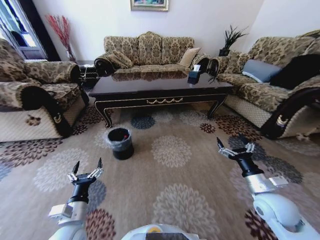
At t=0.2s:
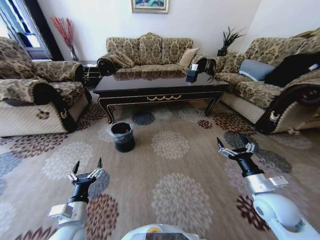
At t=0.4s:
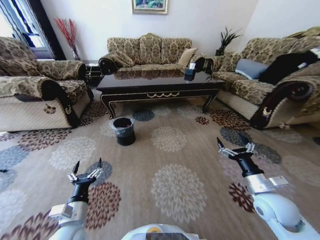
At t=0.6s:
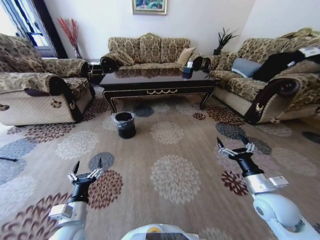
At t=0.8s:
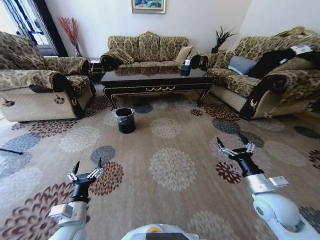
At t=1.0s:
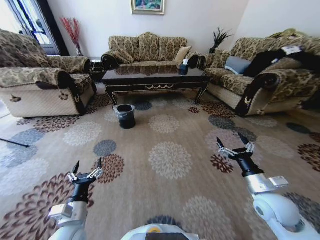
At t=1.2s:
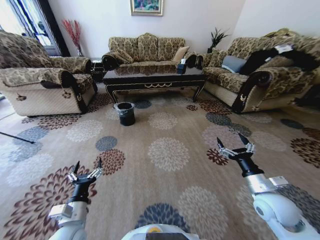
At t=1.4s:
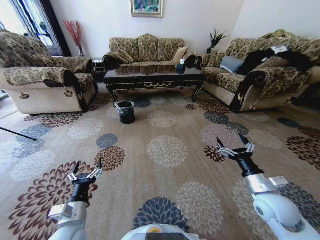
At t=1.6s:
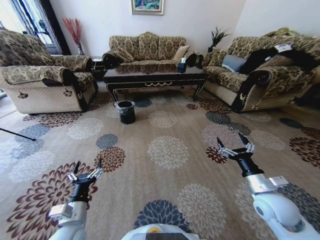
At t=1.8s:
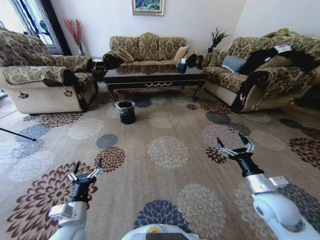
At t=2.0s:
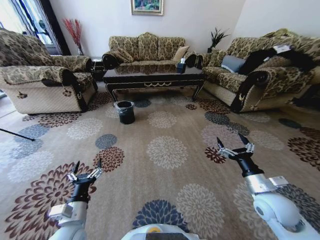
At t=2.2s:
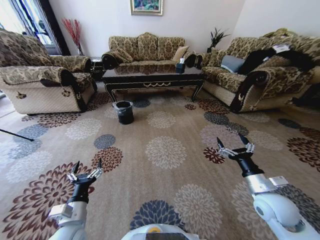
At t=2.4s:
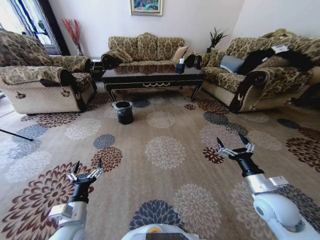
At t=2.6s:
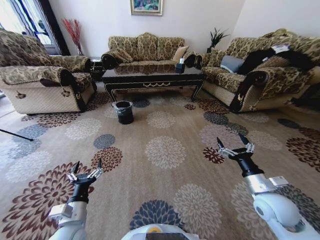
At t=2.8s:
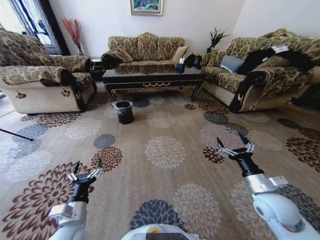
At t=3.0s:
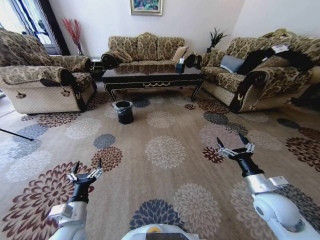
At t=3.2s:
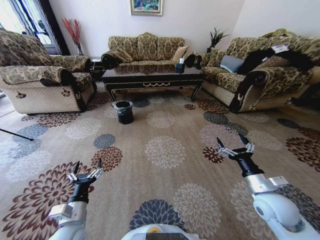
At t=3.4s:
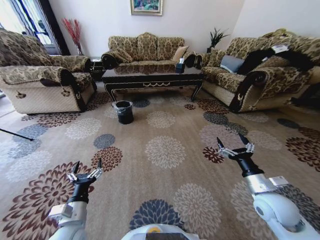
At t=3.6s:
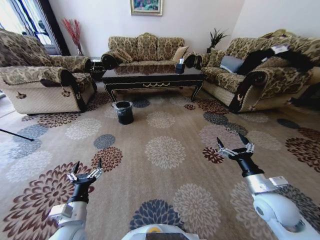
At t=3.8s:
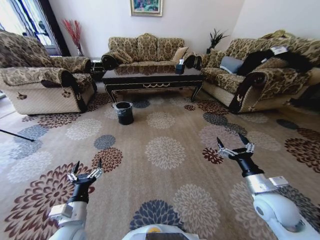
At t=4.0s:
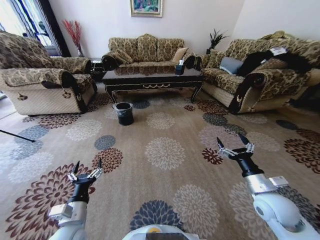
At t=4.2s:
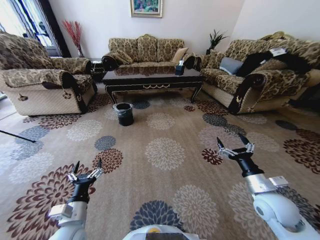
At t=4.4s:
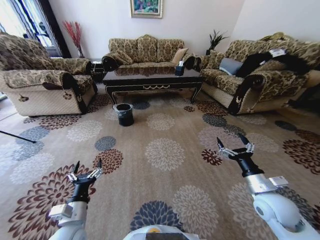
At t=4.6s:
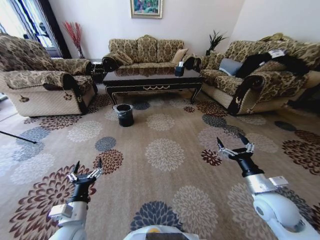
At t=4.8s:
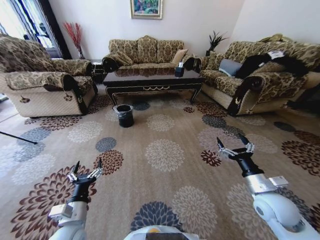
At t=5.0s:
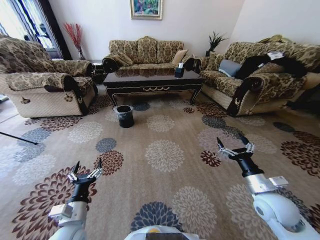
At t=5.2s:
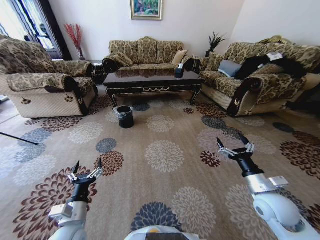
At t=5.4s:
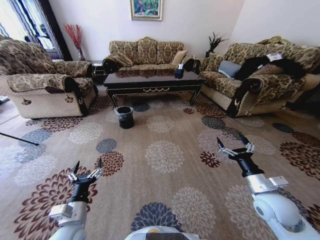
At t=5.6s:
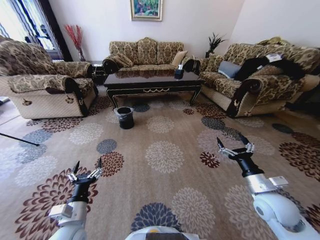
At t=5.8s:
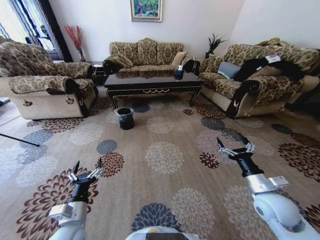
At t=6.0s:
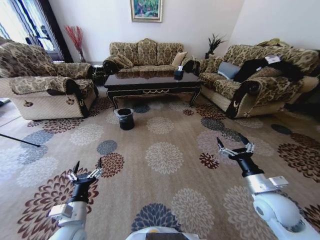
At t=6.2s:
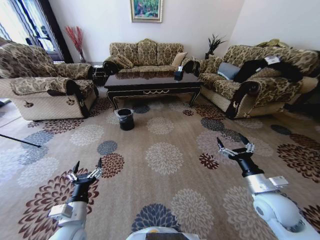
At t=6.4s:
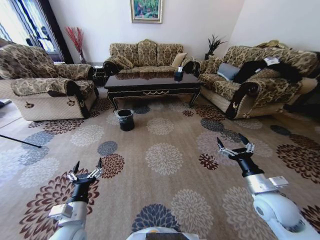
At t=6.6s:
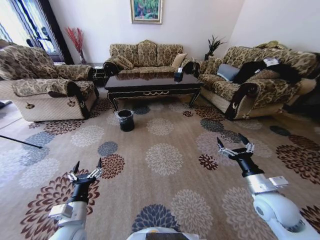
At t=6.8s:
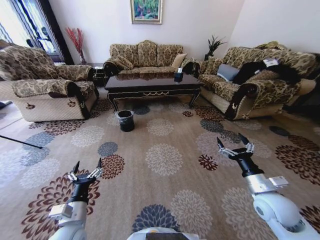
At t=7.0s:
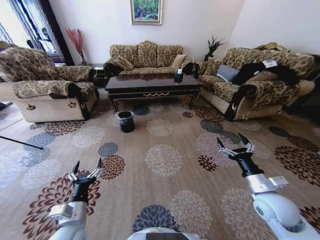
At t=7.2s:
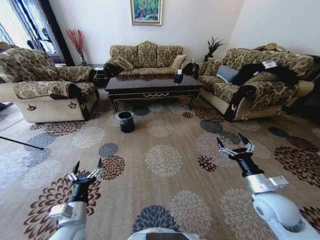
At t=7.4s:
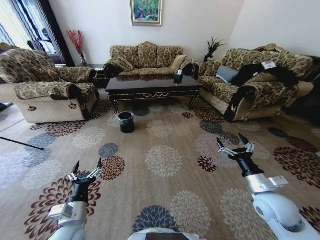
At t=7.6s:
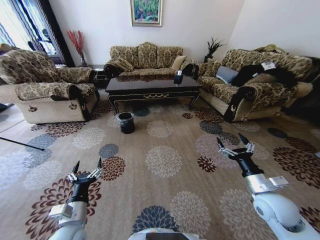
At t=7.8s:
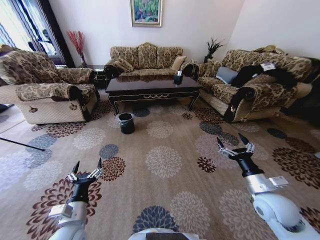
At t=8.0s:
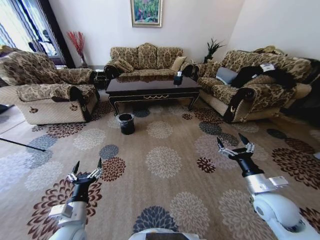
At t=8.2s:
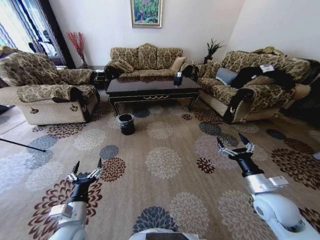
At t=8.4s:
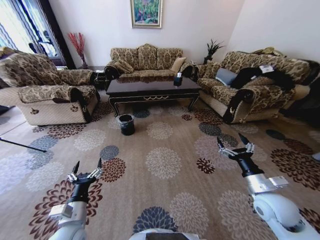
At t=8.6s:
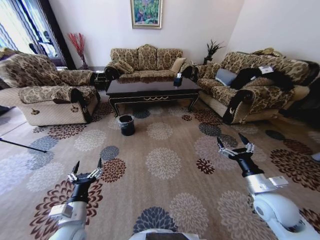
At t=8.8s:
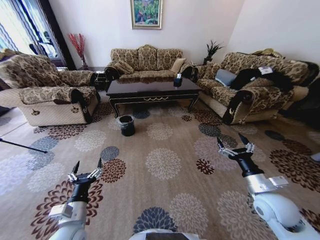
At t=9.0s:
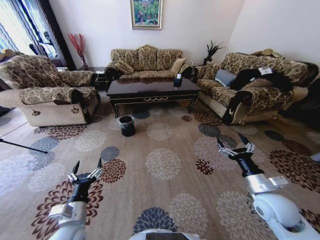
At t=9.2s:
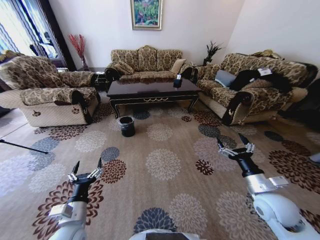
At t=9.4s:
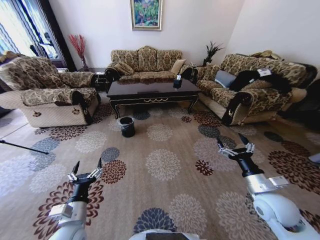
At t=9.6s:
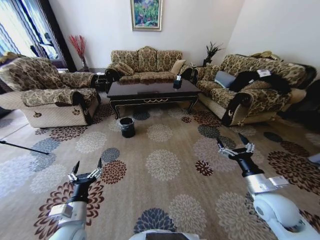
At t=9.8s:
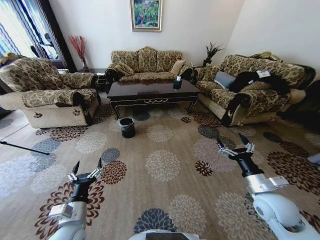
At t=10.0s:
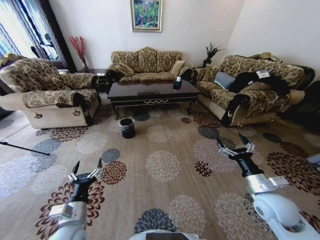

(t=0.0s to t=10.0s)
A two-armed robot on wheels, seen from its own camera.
Task of the whole recording: Move to the front of the table and pick up the trash from the floor, then place it into the trash bin.
t=1.4s - t=4.2s: The two grippers keep their place.
t=8.6s - t=10.0s: Both grippers stay about where they are.

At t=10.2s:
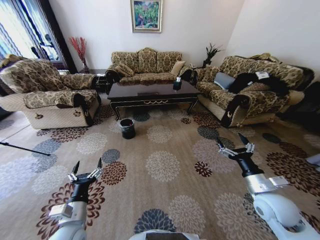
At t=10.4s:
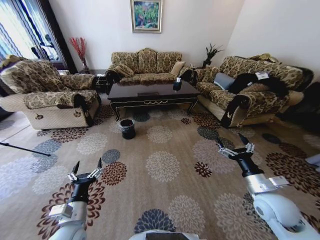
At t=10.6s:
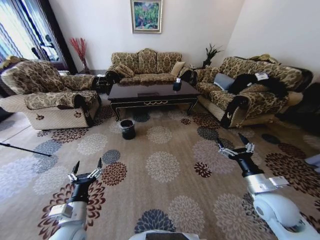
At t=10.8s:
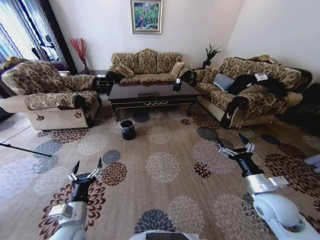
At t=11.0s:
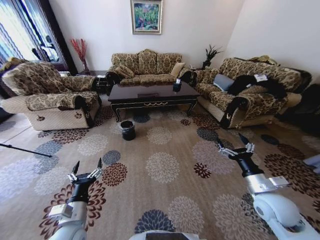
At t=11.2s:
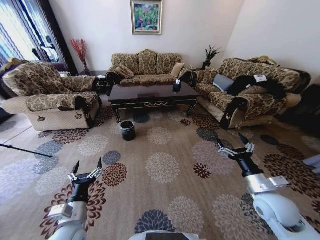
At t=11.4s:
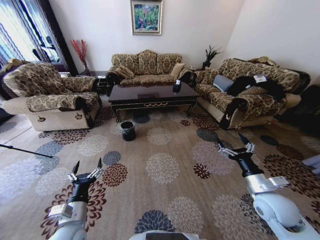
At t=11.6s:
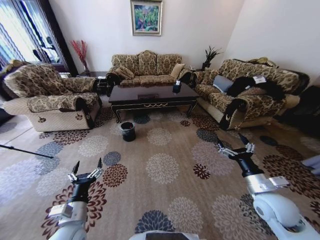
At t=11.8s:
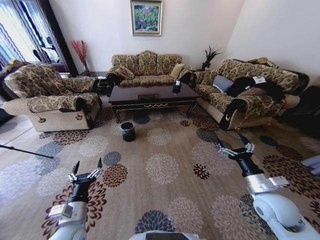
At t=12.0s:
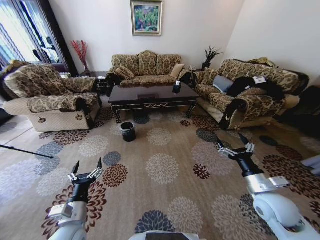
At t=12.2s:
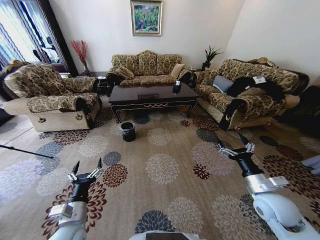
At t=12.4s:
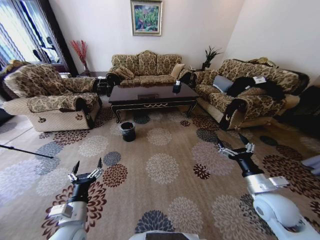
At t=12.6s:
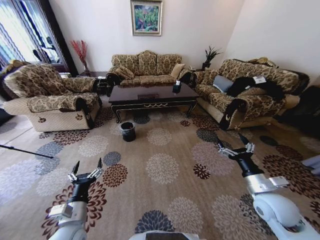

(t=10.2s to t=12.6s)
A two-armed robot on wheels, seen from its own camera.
Task of the whole recording: Move to the front of the table and pick up the trash from the floor, then place it into the trash bin.
t=10.2s - t=12.6s: Both grippers stay put.

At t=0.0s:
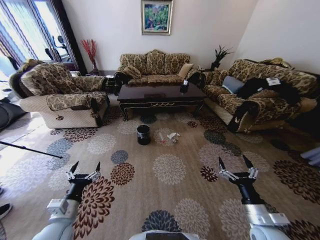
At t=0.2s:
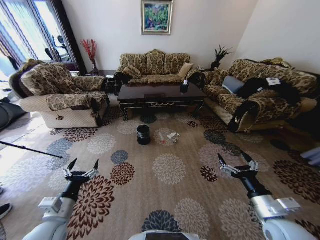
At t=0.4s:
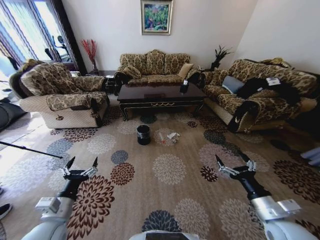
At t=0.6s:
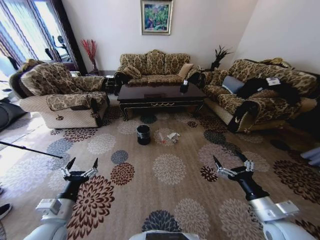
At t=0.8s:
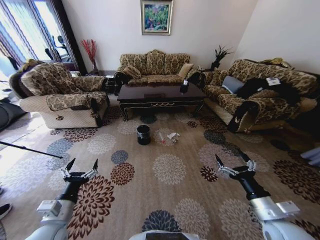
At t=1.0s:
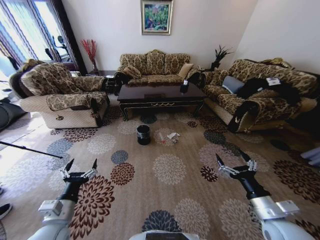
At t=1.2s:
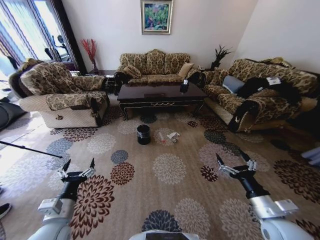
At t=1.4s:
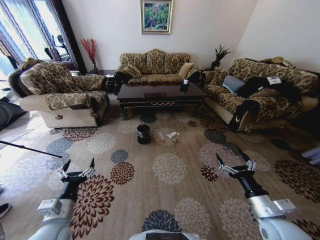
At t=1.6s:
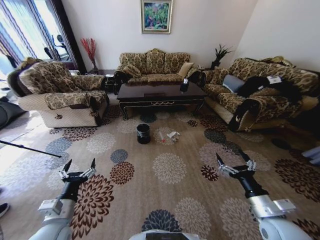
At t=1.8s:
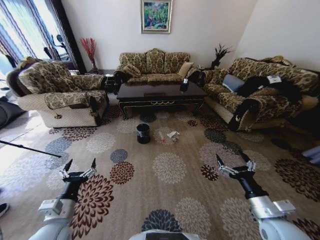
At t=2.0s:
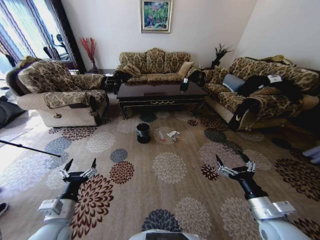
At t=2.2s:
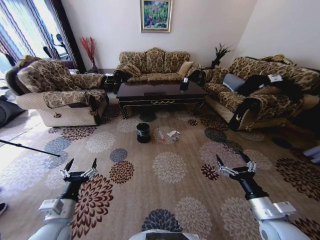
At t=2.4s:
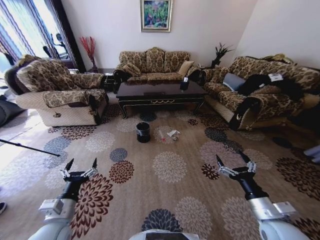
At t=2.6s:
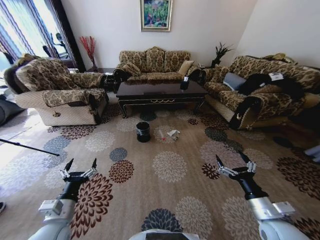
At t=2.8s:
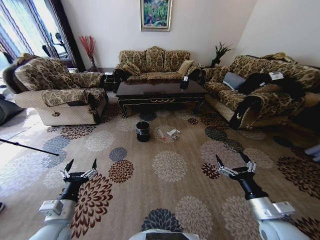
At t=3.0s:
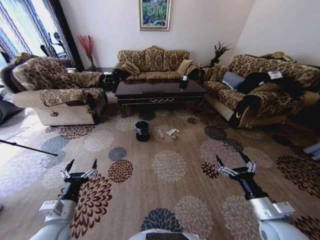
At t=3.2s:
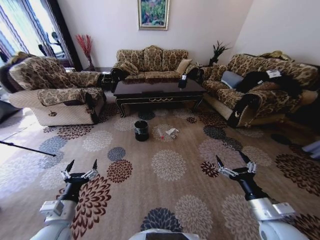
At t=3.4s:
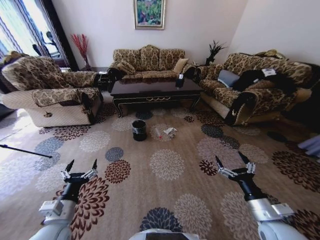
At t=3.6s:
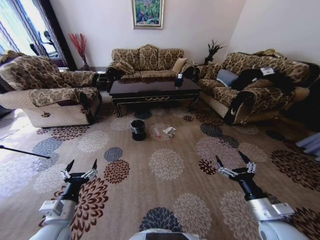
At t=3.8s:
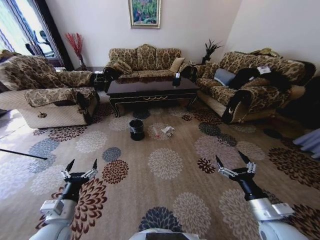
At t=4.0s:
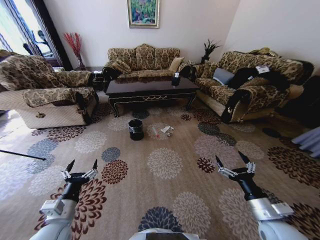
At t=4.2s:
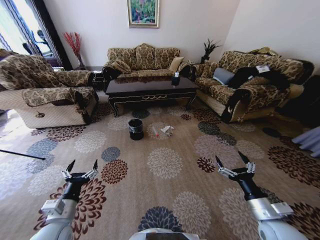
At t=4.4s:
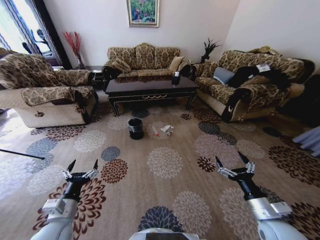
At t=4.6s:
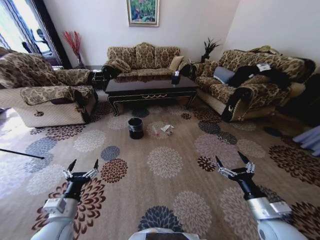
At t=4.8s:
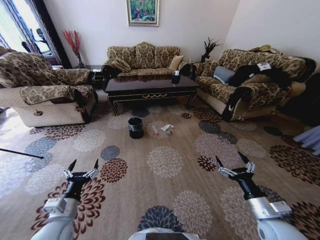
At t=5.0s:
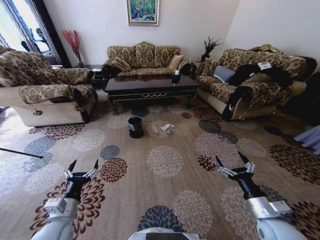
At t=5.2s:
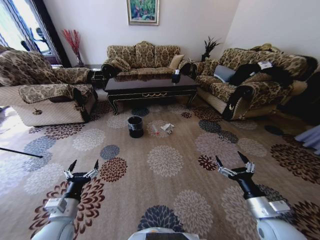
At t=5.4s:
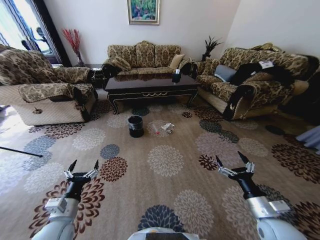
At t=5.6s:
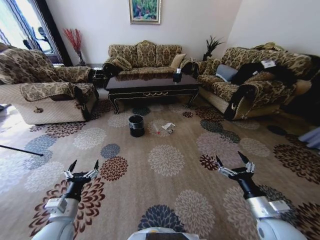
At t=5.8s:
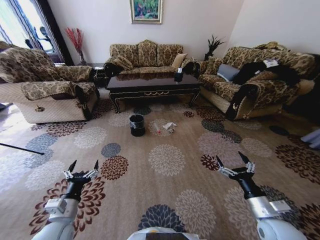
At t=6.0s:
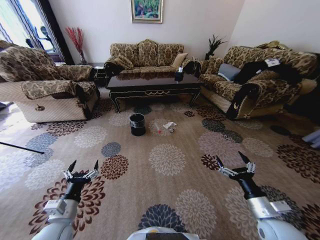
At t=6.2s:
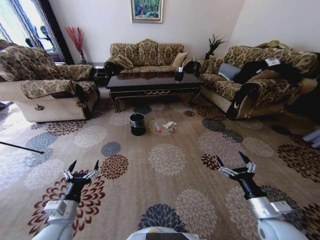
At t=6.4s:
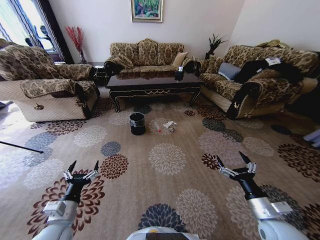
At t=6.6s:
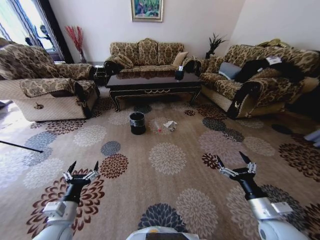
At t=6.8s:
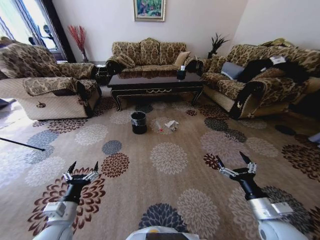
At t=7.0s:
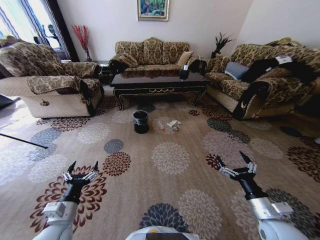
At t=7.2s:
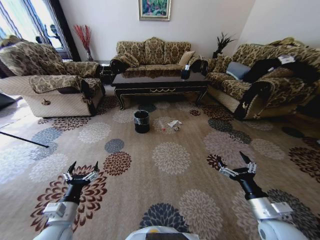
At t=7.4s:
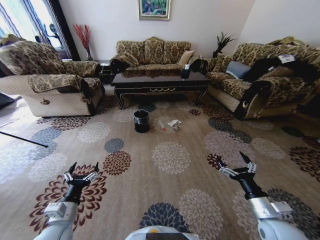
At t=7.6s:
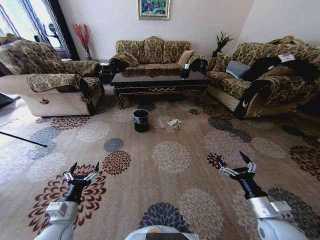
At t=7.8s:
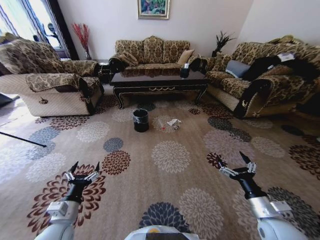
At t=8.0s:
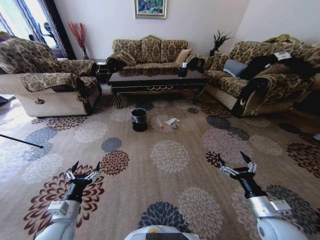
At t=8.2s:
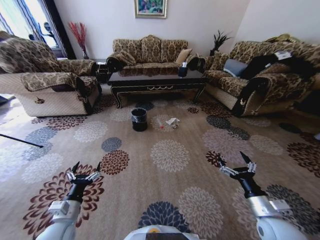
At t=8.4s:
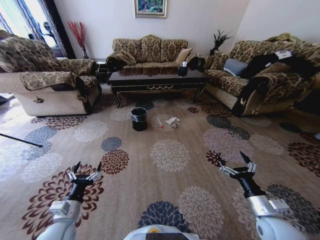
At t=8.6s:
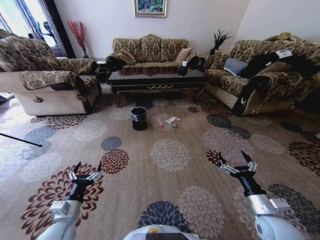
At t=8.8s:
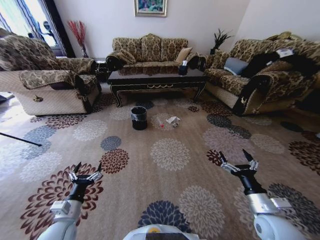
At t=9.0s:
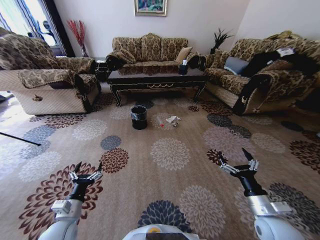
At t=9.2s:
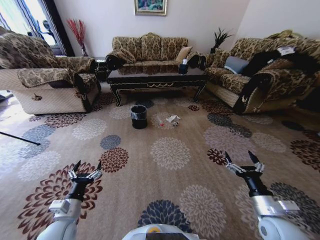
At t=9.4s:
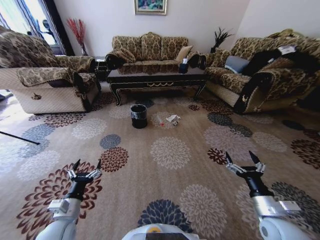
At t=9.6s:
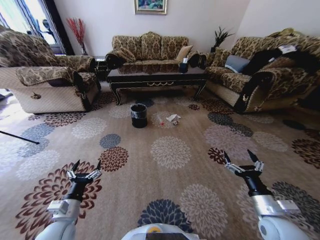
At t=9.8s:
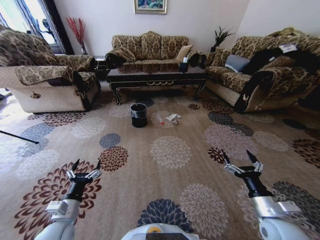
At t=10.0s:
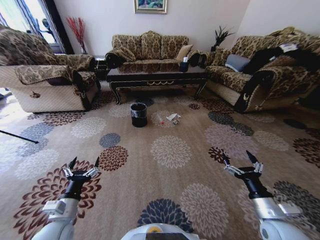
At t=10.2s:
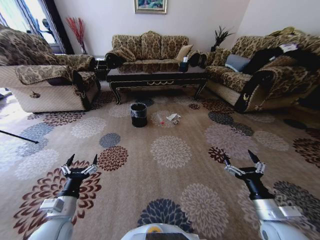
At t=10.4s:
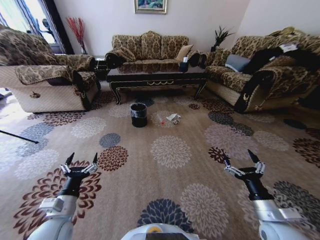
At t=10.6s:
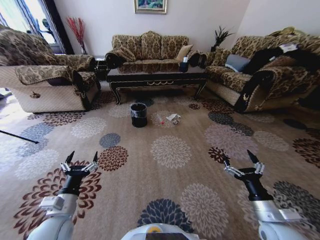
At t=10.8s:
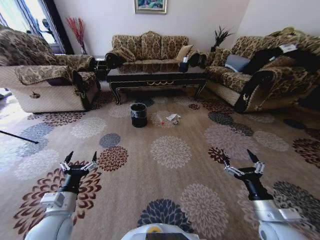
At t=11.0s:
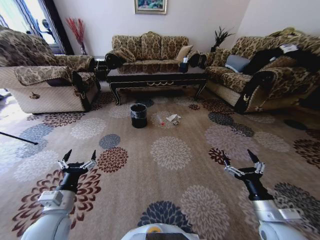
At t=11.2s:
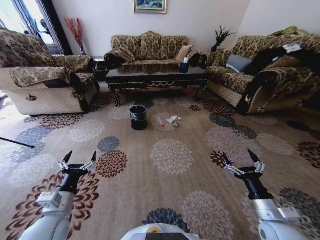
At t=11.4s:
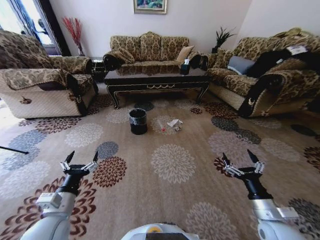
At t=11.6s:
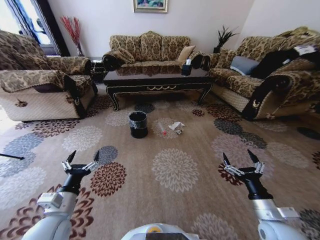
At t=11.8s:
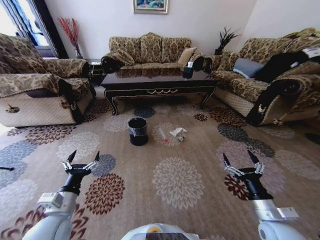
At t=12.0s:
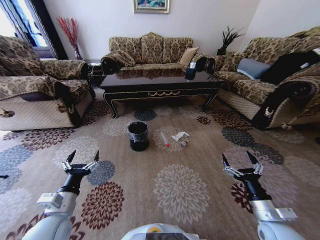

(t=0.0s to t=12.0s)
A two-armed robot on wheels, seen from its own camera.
Task of the whole recording: Move to the front of the table and pick up the trash from the floor, then place it into the trash bin.
t=9.0s - t=10.4s: The left gripper shifts about 5 cm upward.
